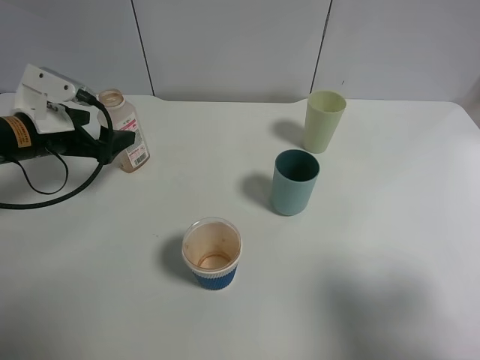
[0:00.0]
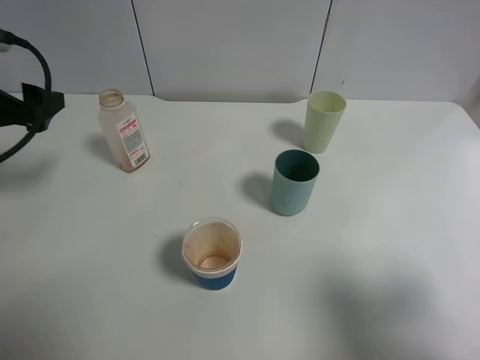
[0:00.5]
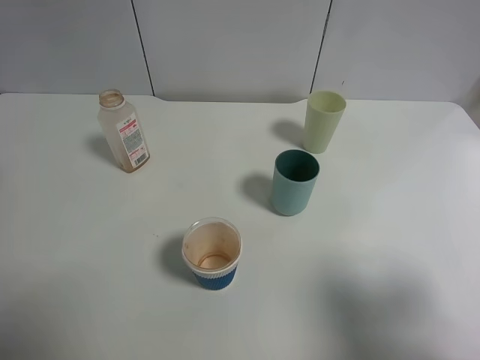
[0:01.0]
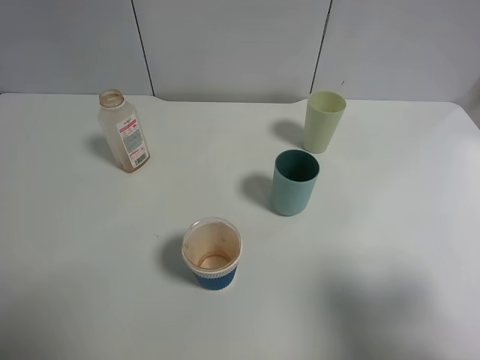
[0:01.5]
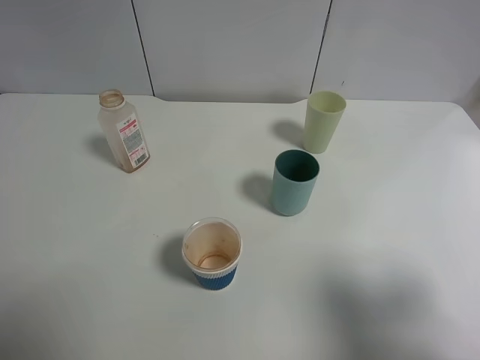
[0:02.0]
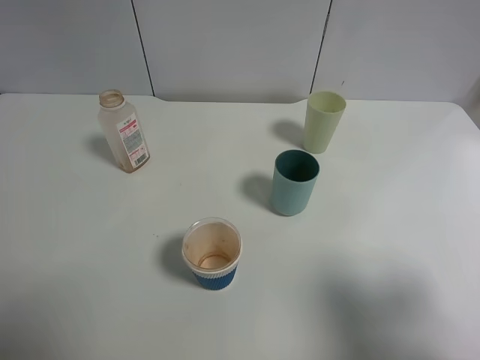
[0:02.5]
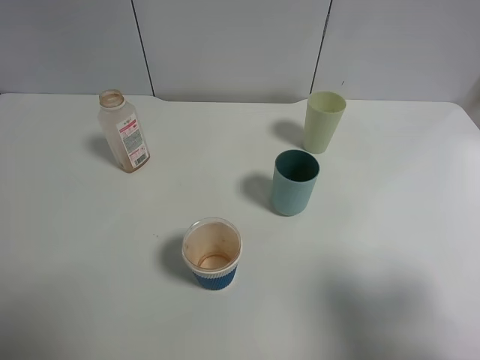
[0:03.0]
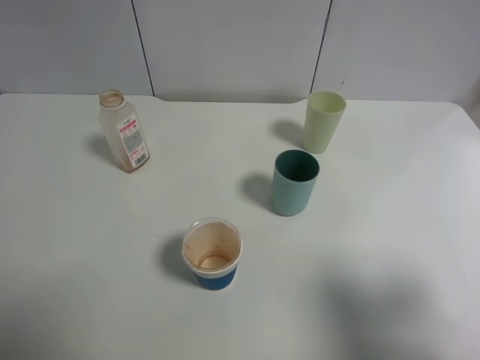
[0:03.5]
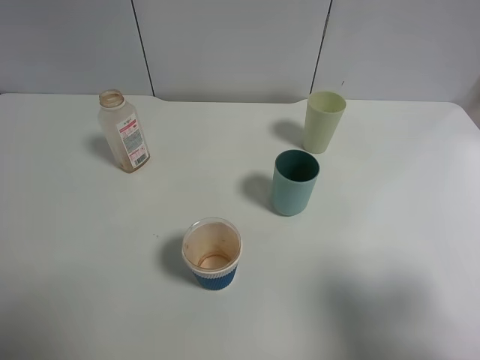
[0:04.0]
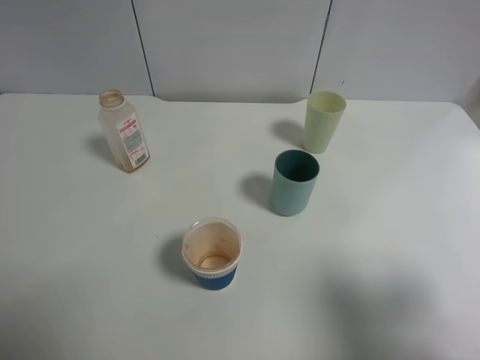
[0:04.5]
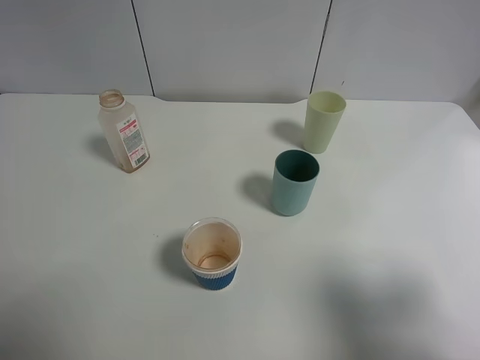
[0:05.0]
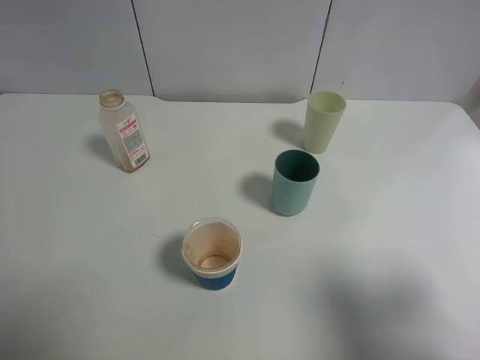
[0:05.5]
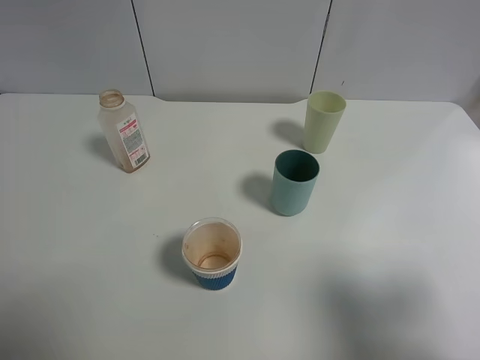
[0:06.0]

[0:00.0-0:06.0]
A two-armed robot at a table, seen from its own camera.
Task of the whole recording: use a gripper to hold the bottle of the drink and pour it into a random cup.
0:00.0 to 0:02.0: The left gripper is displaced backward and upward by some 35 cm.
0:04.0 to 0:06.0: Both grippers stay about where they are.
